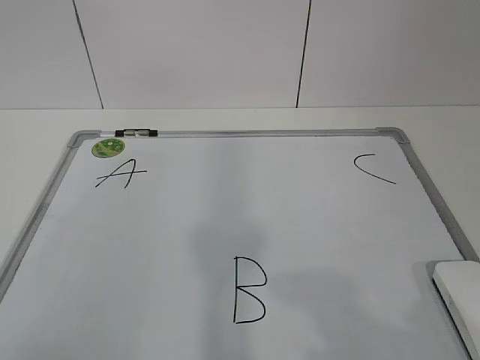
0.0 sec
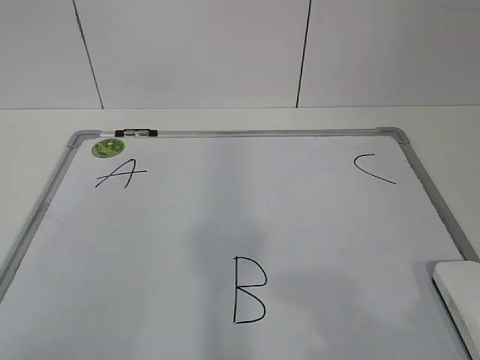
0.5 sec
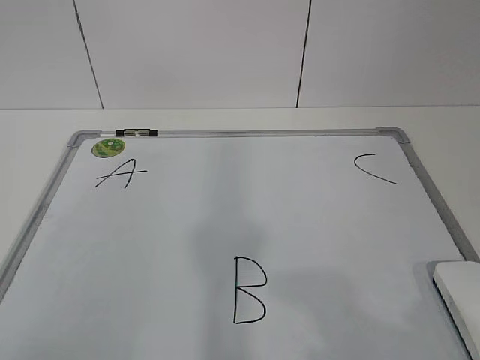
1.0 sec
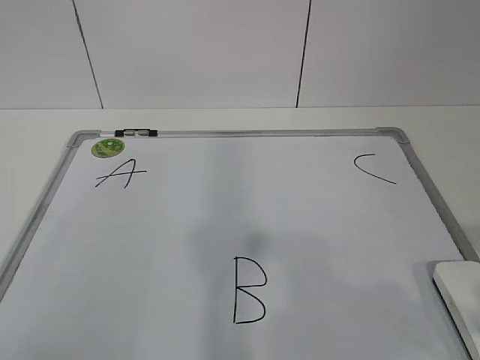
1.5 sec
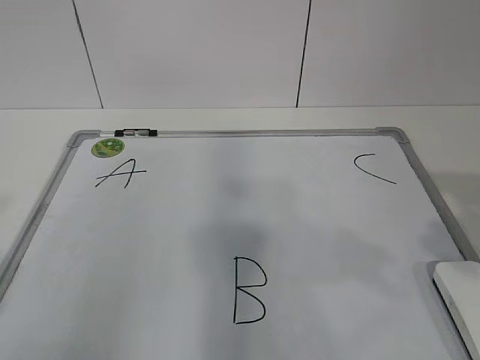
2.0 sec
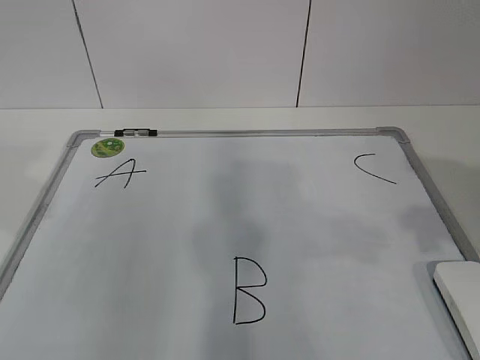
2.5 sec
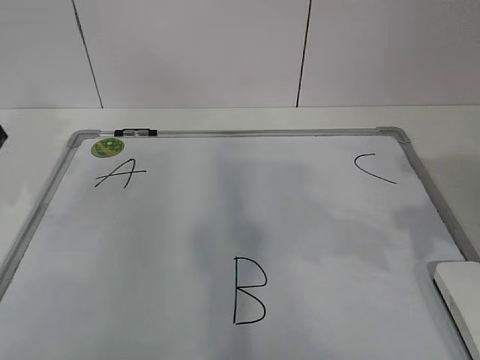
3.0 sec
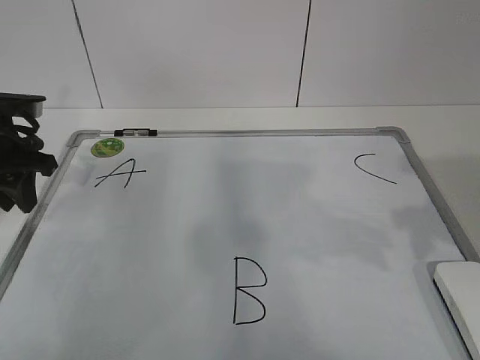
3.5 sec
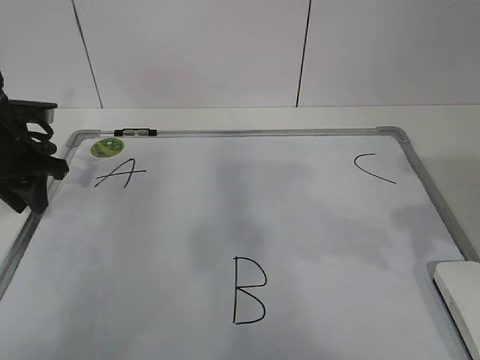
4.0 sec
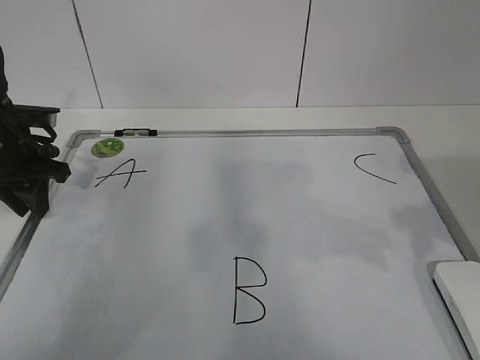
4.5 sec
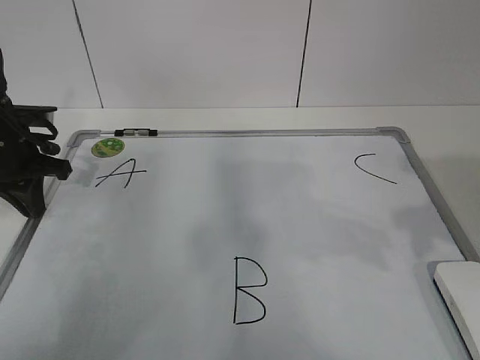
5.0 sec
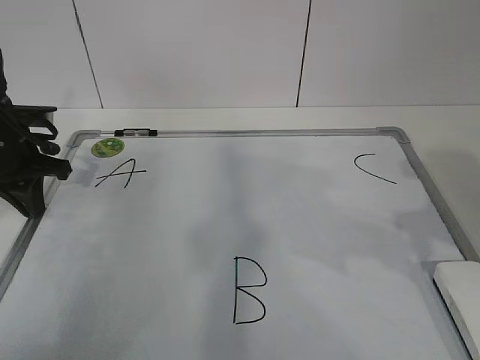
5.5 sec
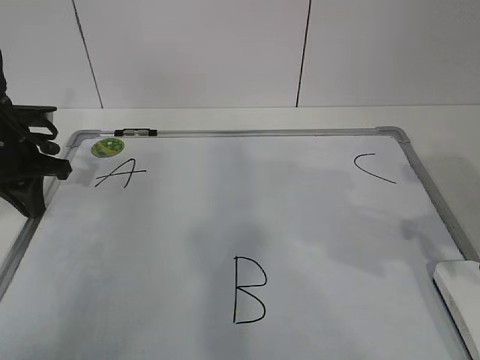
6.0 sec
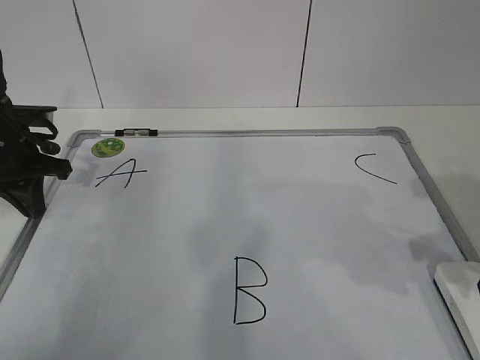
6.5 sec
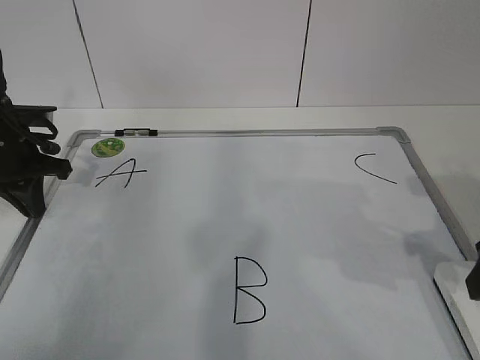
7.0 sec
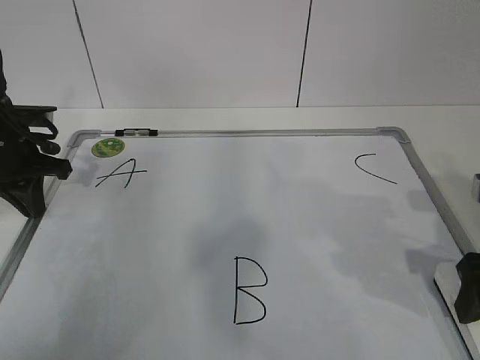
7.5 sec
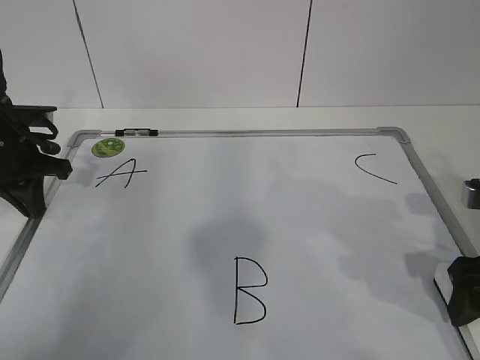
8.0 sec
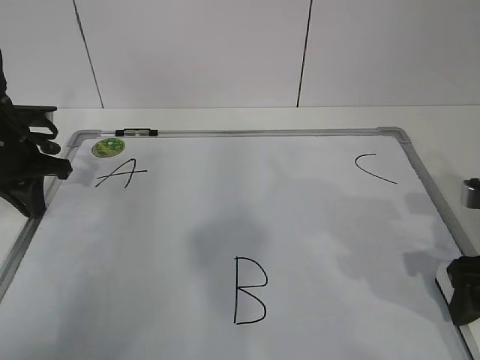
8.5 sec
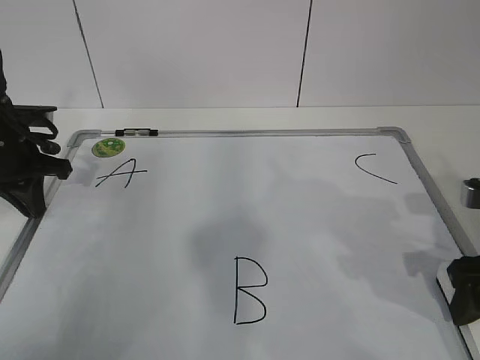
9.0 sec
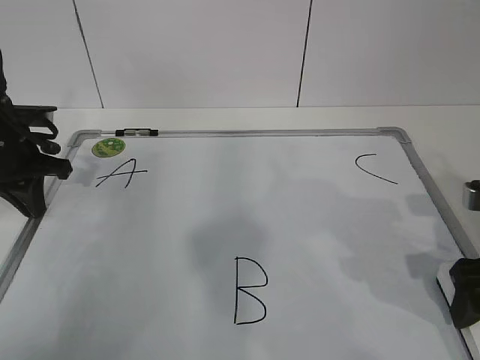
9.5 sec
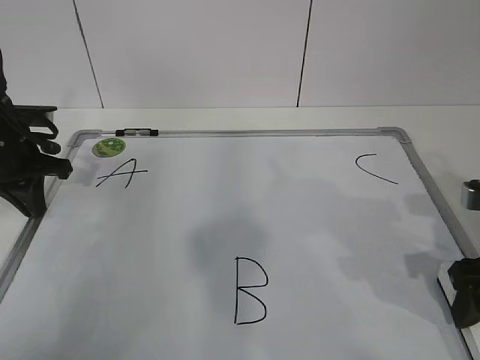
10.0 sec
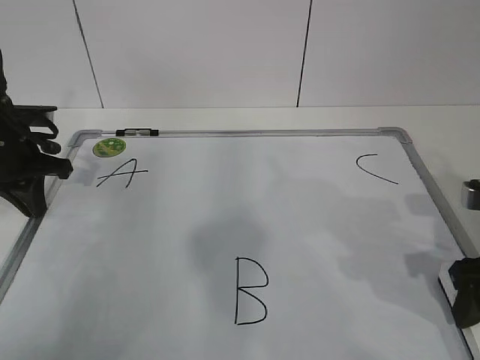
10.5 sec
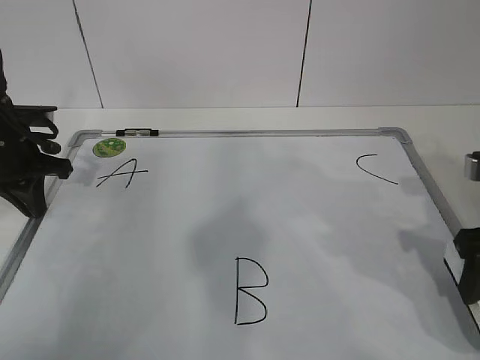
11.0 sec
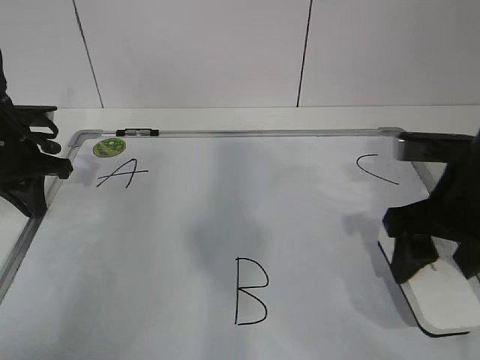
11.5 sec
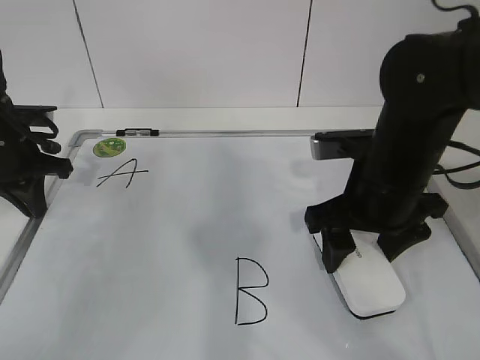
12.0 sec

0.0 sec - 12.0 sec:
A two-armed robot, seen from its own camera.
Task of the whole recording: pick up the eraser on the blackboard and erase the letter "B".
Step, 0.0 sec - 3.5 sec: Hold the drawing board steady with your left hand.
Step, 4.5 sec - 8.0 sec: Grab the eraser with your right hand.
2.0 sec - 4.0 sec: The right gripper shifts approximately 10 cm forward. Meanwhile the left gripper is displaced forward and downward by approximately 35 cm.
4.0 sec - 6.0 sec: The left gripper closes.
6.0 sec - 8.0 sec: The right gripper is displaced downward by approximately 5 cm, and opens its fingers.
10.0 sec - 12.0 sec: The right gripper moves to the left and forward, roughly 15 cm.

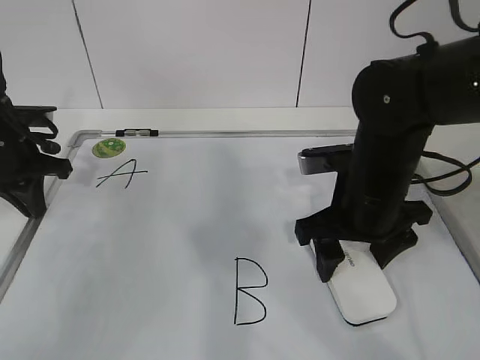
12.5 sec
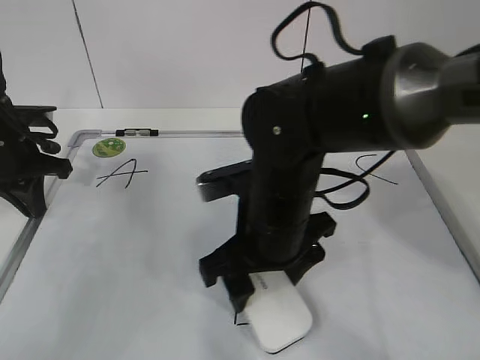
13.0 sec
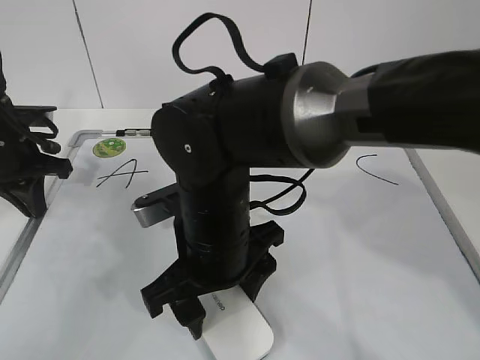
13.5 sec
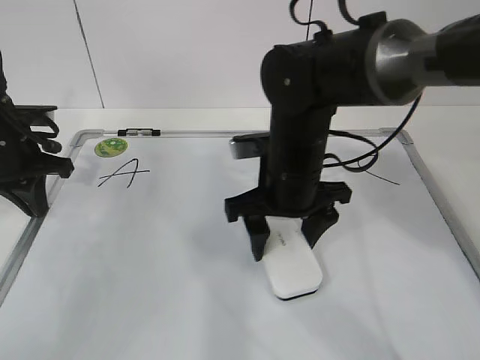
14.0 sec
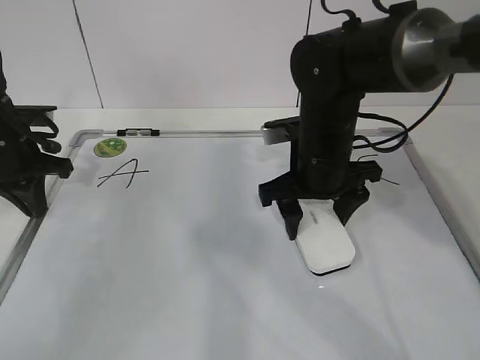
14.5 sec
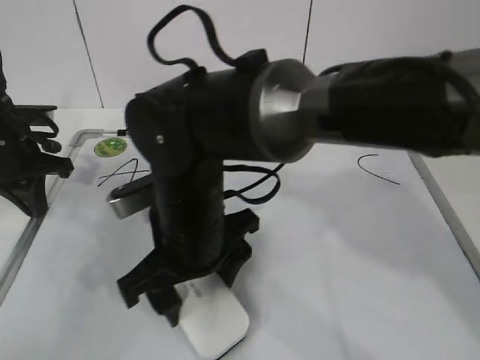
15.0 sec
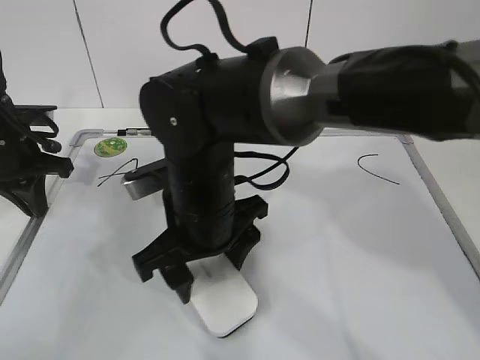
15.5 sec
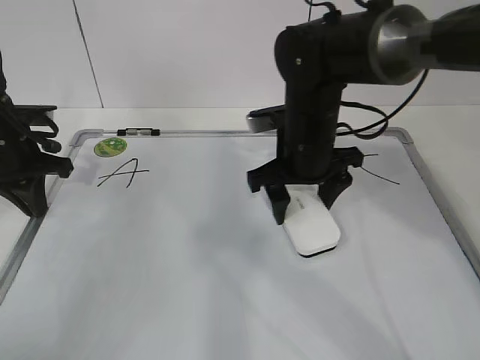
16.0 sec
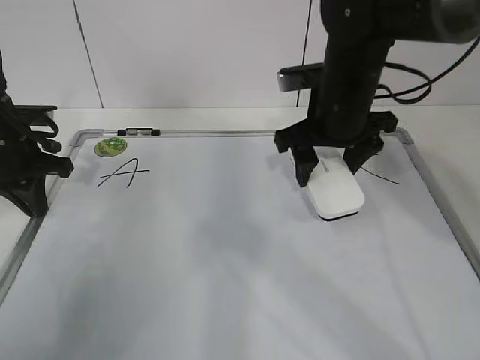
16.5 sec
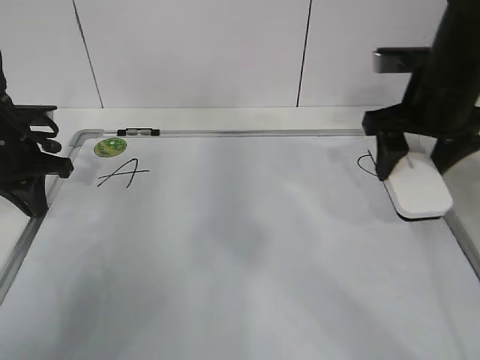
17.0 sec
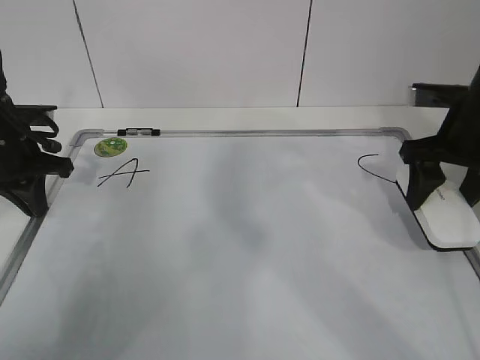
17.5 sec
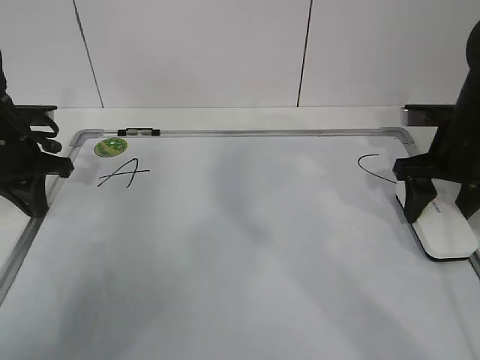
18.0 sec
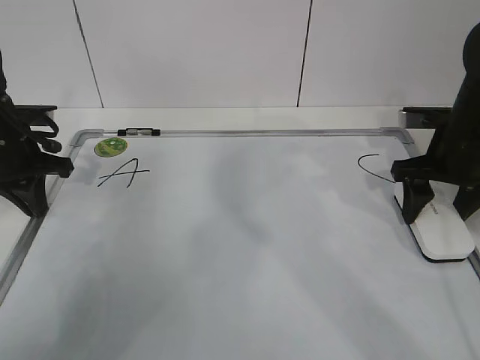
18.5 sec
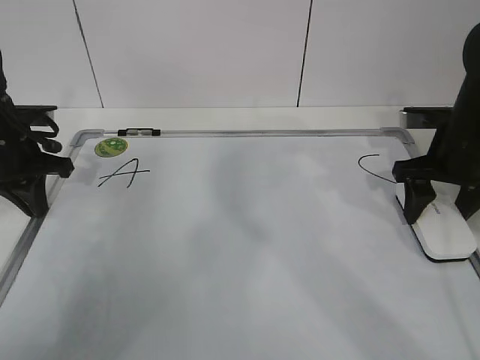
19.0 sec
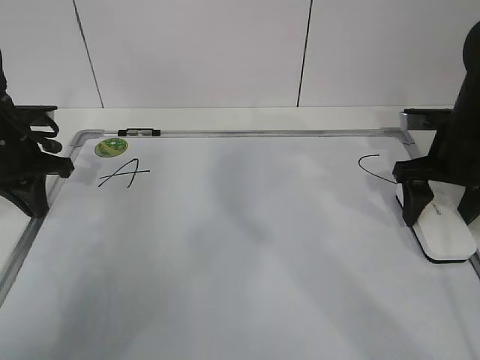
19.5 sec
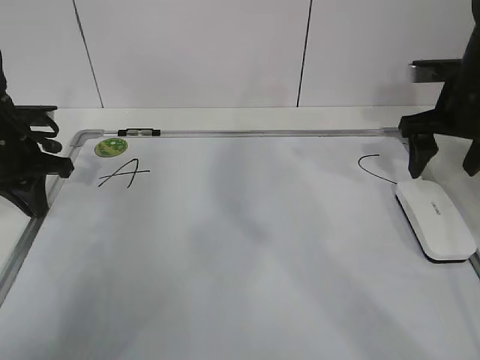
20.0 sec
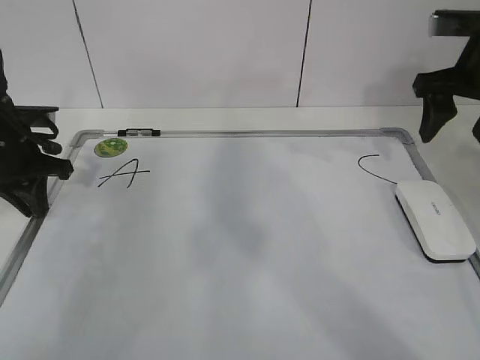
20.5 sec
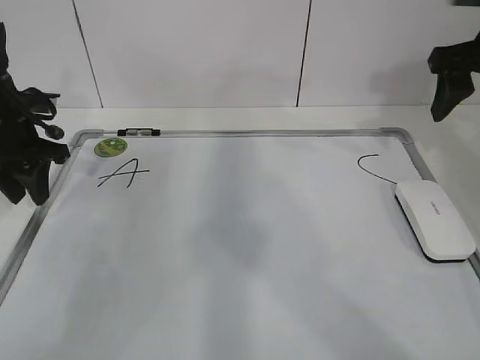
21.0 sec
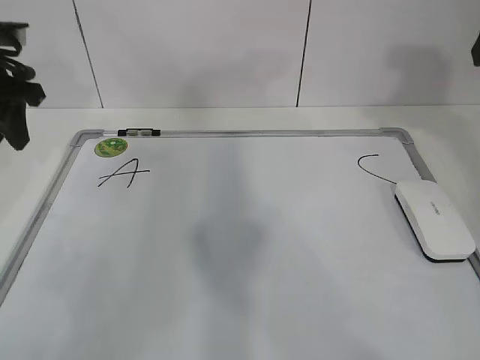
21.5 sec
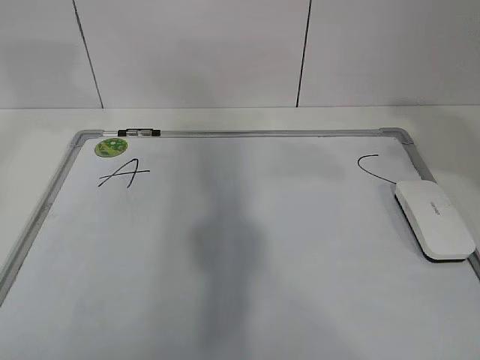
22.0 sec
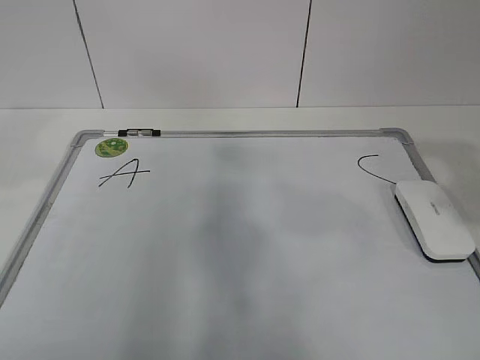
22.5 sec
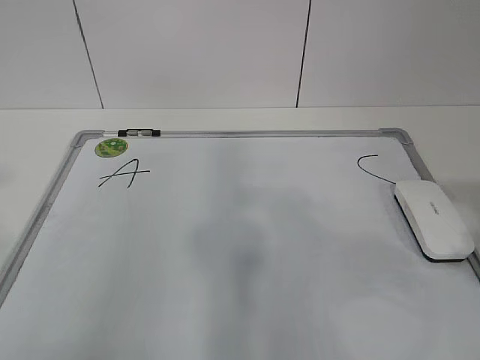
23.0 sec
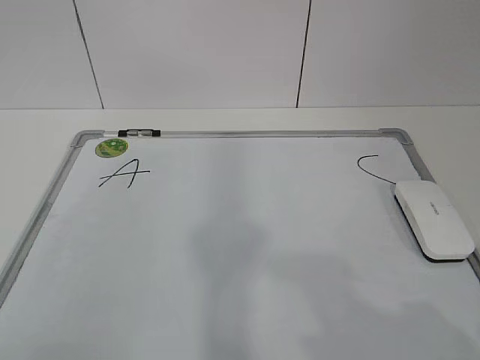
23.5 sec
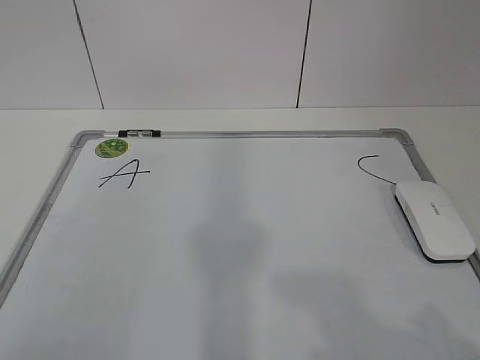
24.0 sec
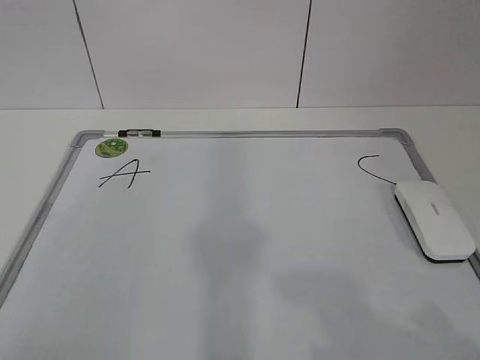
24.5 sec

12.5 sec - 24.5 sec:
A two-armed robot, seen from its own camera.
Task of the whole recording: pick up the eraser on the blackboard and erase the letter "B".
Step, 14.0 sec - 16.0 sec: Put down the eraser with your right hand.
12.5 sec - 14.5 sec: The right gripper goes approximately 5 cm forward, and travels to the left and back again, approximately 15 cm each way.
14.5 sec - 16.5 sec: The right gripper heads upward, covering about 5 cm, and travels to the left and back again, some 15 cm each way.
16.5 sec - 18.5 sec: The right gripper is displaced to the right by roughly 15 cm.
18.5 sec - 20.5 sec: The right gripper moves upward, approximately 10 cm, and opens up.
20.5 sec - 22.5 sec: The right gripper moves backward, roughly 25 cm; the left gripper heads upward and backward, covering roughly 30 cm, and opens up.
22.5 sec - 24.5 sec: The two grippers go some 20 cm backward and downward.

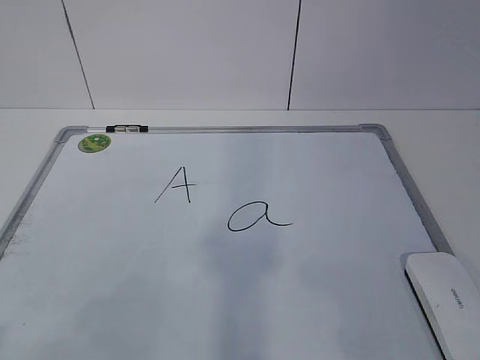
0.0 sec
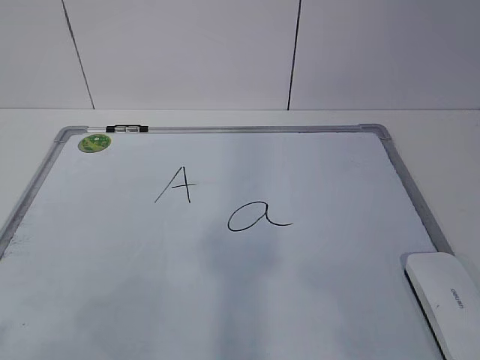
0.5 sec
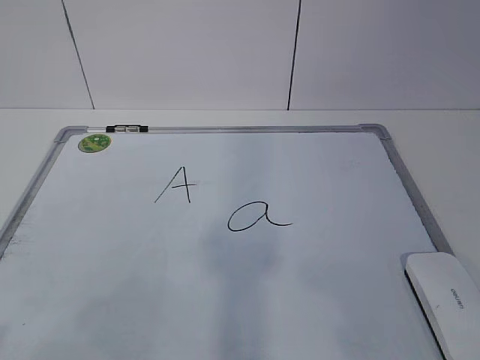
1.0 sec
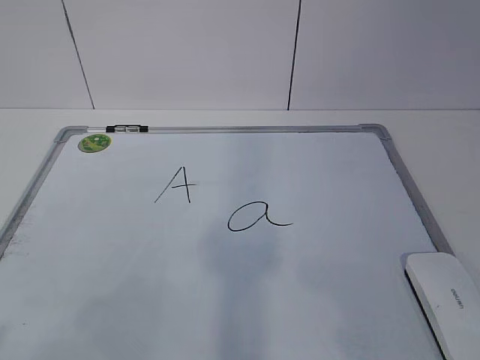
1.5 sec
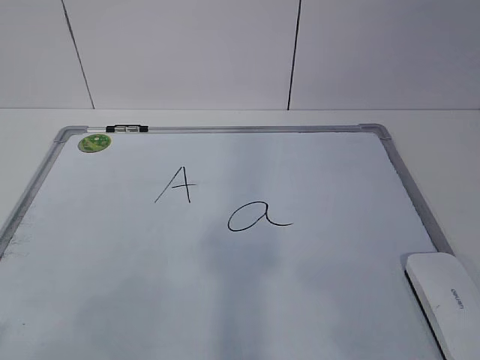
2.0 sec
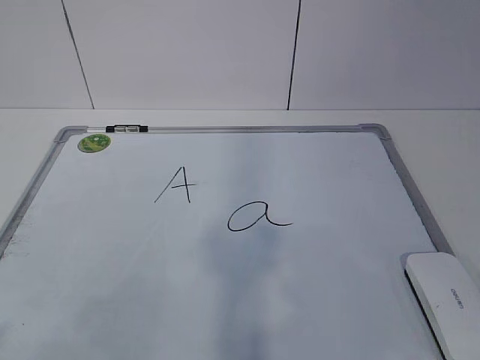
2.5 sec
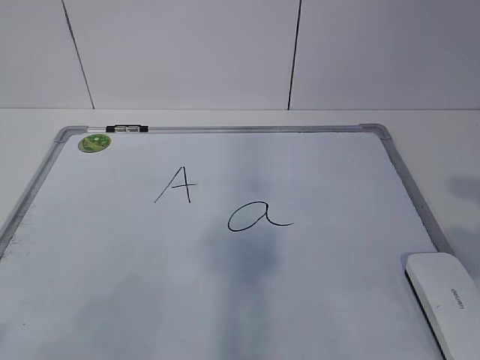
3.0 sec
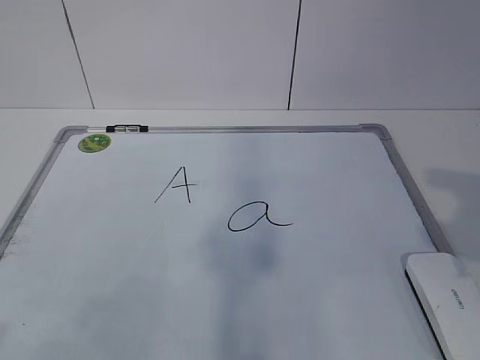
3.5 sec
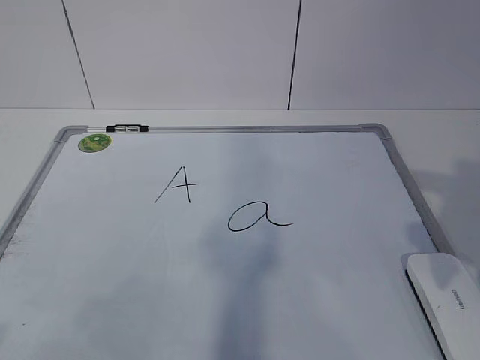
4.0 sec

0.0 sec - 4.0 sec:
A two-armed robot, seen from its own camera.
Task of the whole recording: pick up the eraser on the blackboard and erase the letter "a".
2.0 sec - 4.0 sec: The right gripper travels forward by roughly 15 cm.
